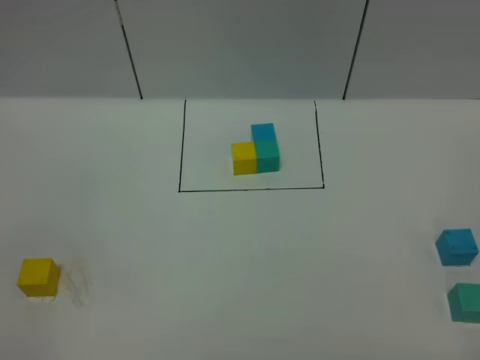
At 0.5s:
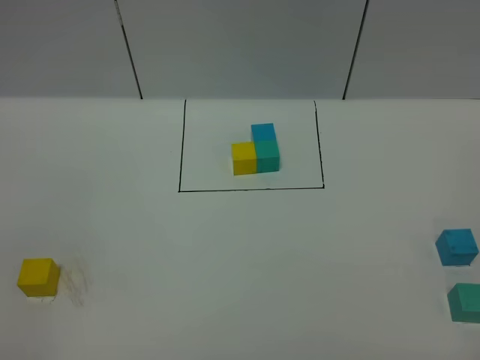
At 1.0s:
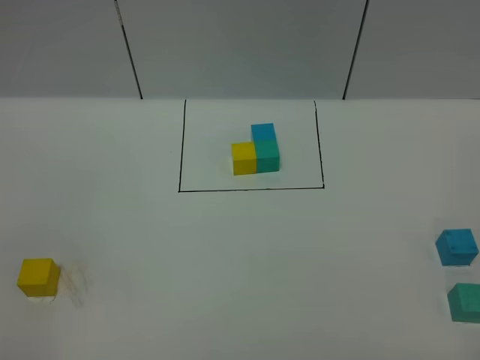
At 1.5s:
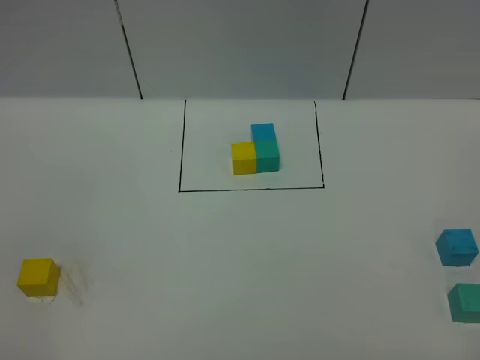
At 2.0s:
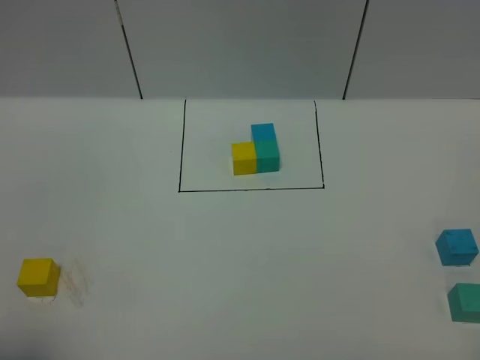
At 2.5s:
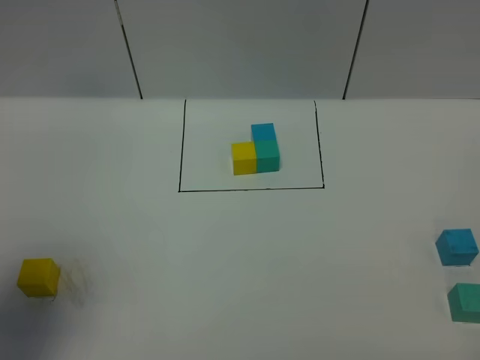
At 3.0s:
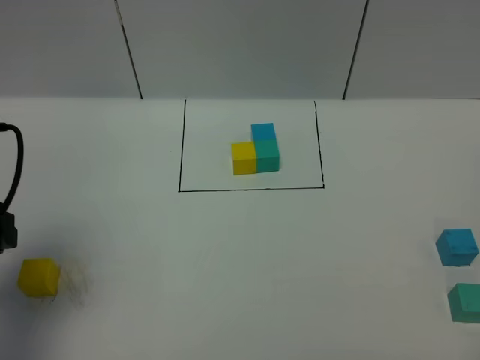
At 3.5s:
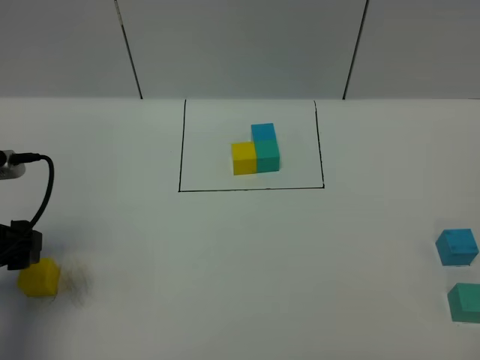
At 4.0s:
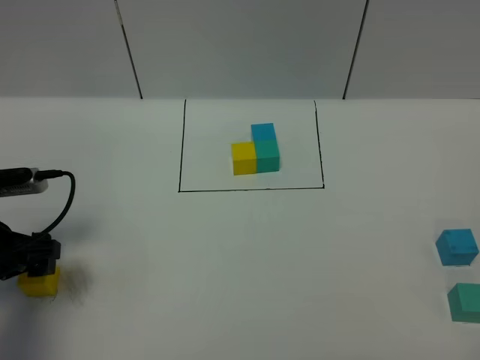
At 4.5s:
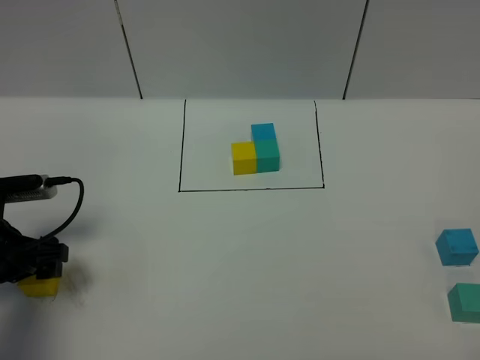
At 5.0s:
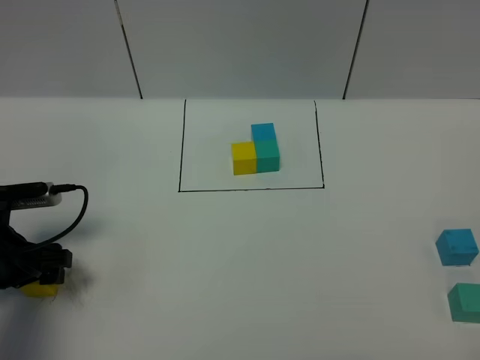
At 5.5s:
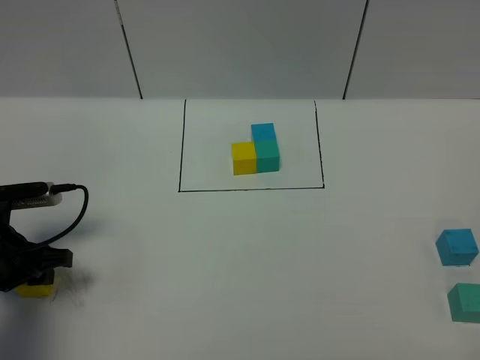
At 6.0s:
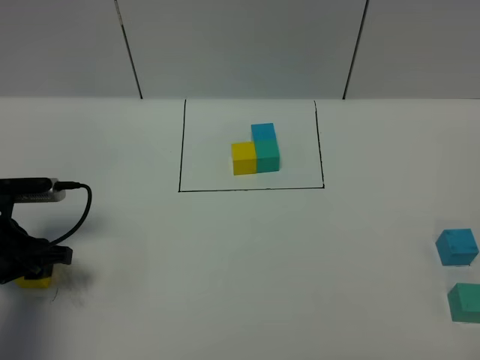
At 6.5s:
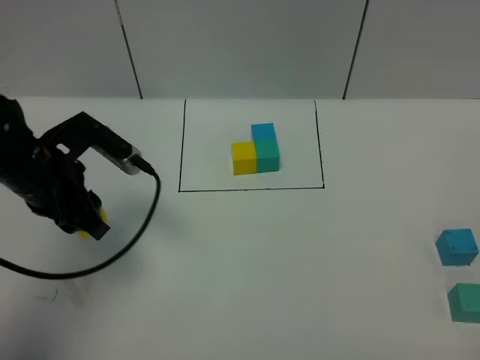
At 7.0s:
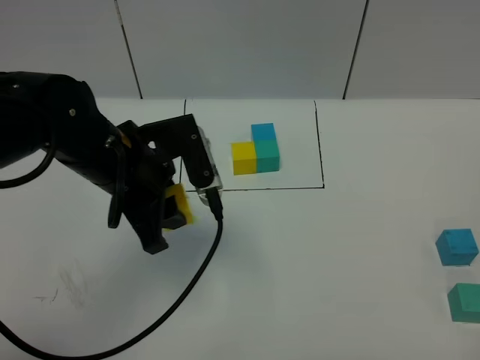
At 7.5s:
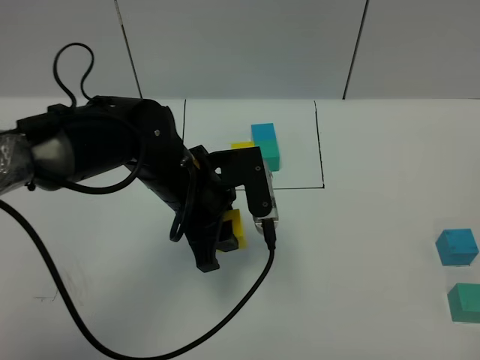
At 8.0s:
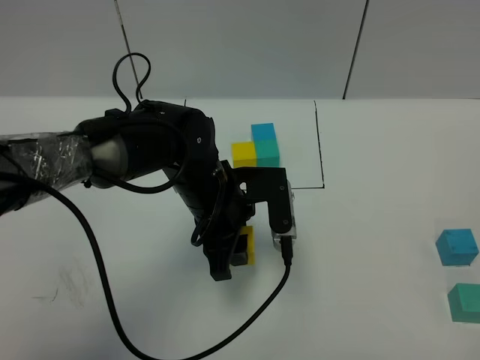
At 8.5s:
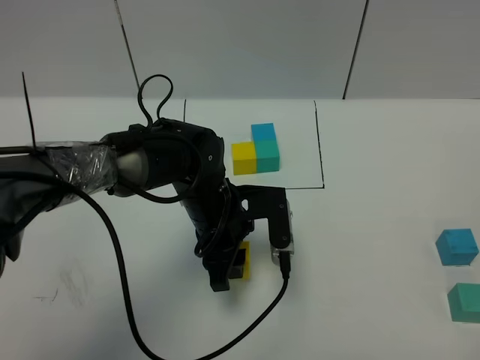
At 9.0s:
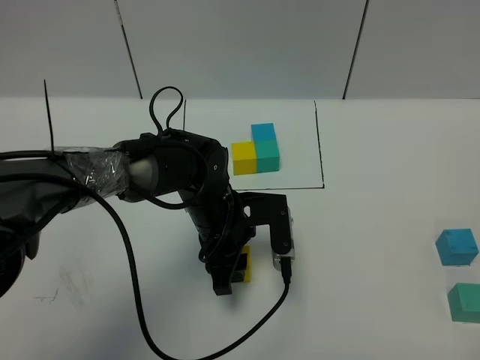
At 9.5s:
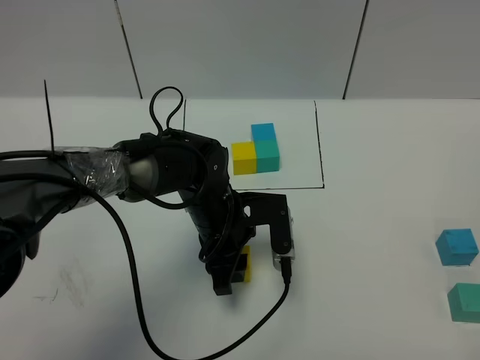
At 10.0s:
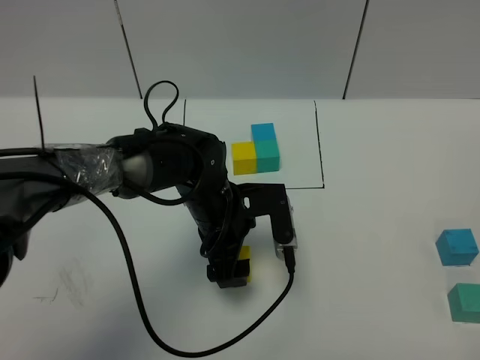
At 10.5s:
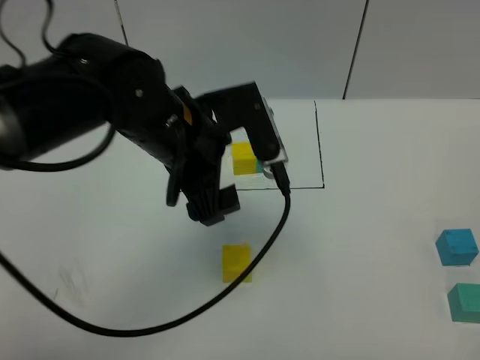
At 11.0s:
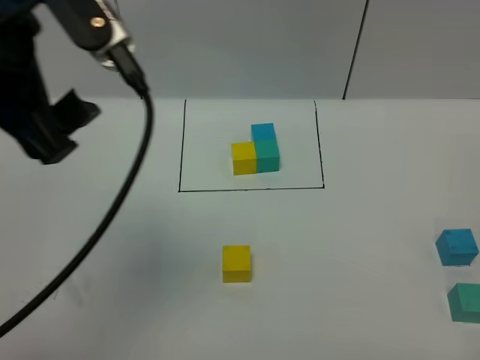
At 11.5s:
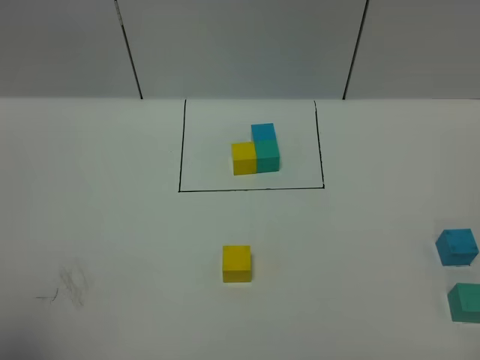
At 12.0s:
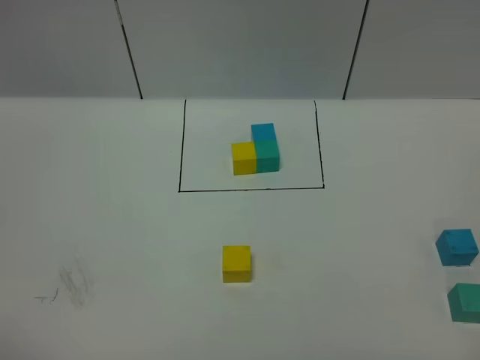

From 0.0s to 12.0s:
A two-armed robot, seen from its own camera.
Task of the whole recording: According to the building block template in front, assemble the scattered blocks together.
Step, from 2.5s to 10.0s: Put the yellow cube in the center of the table.
From 2.0s to 4.0s: The left gripper heads forward and downward, covering approximately 25 cm.
From 4.0s to 6.0s: The left gripper closes.
From 6.0s to 8.0s: The left gripper travels to the right by roughly 25 cm.
From 8.0s to 10.0s: The left gripper opens.
From 10.0s to 12.0s: The left gripper moves backward, upward and to the left, about 60 cm.

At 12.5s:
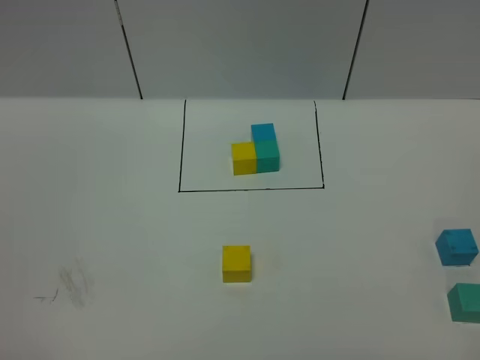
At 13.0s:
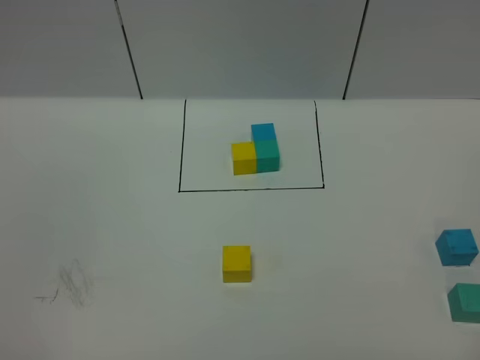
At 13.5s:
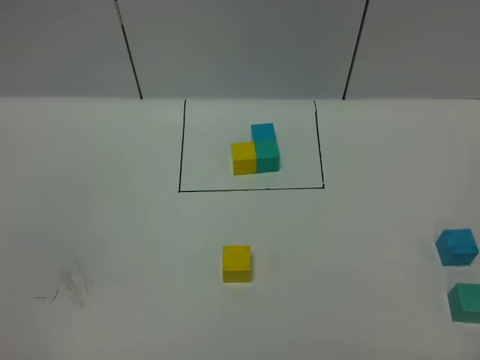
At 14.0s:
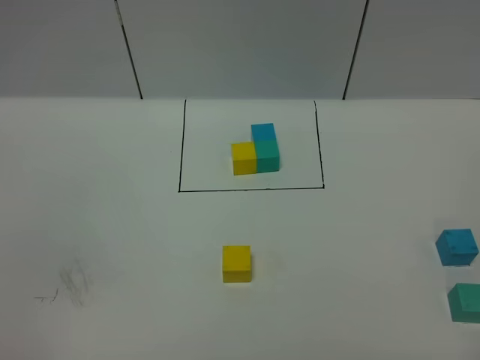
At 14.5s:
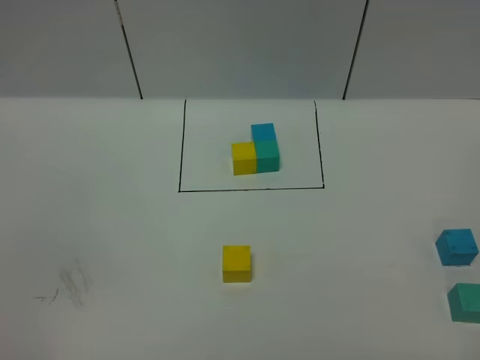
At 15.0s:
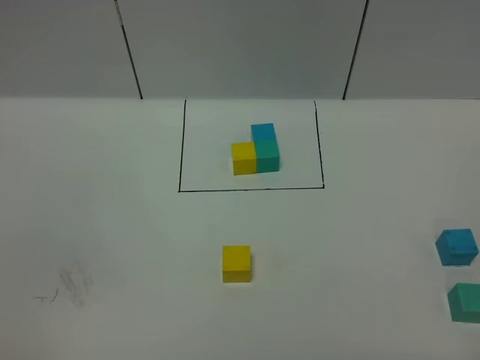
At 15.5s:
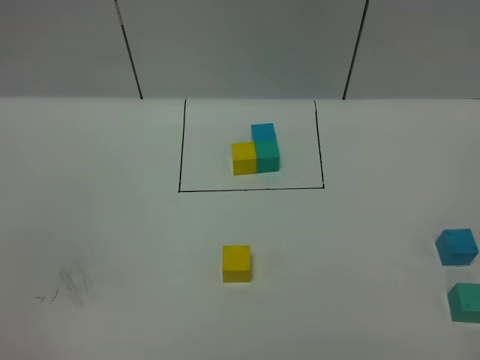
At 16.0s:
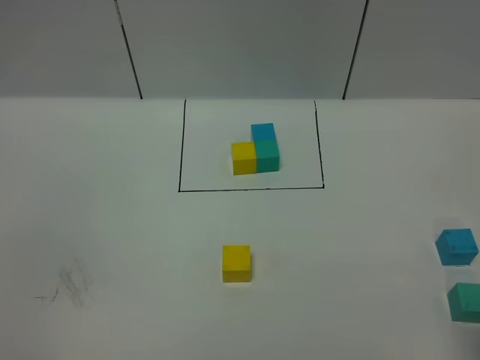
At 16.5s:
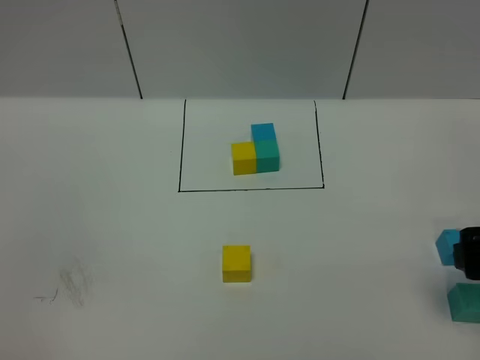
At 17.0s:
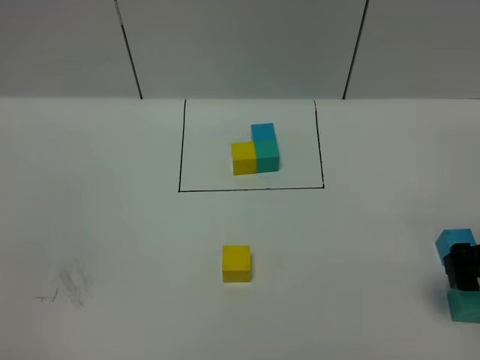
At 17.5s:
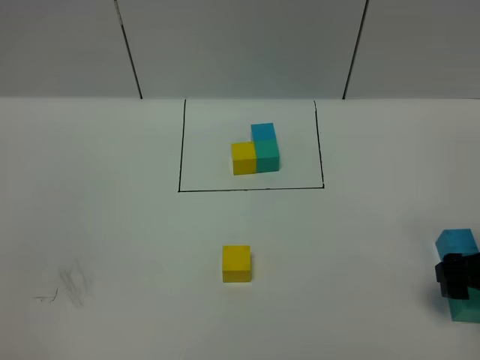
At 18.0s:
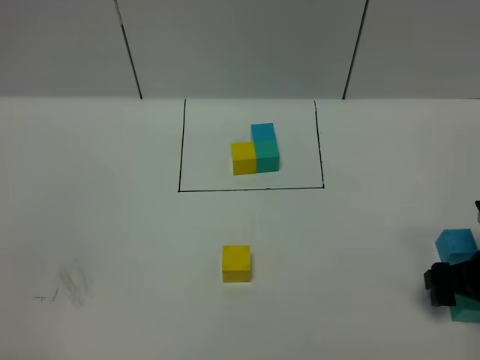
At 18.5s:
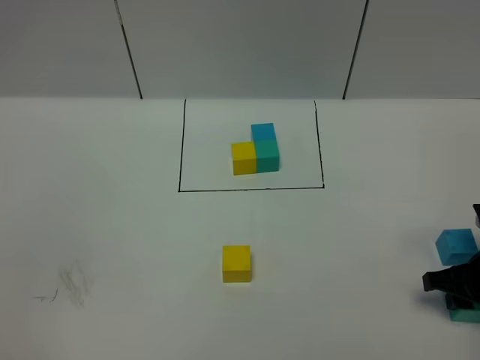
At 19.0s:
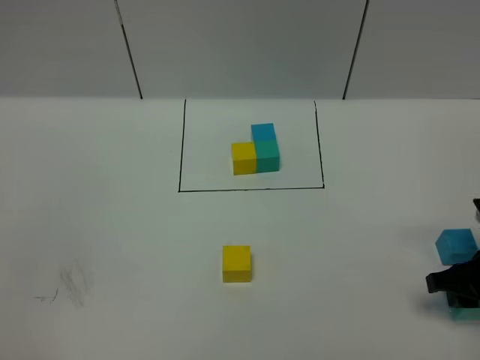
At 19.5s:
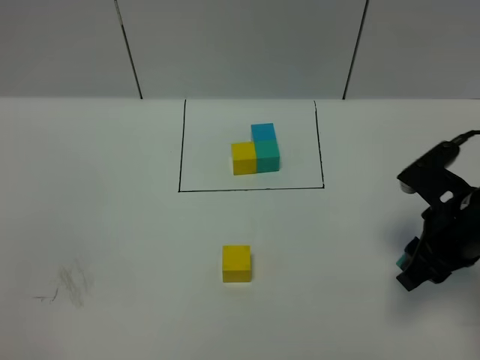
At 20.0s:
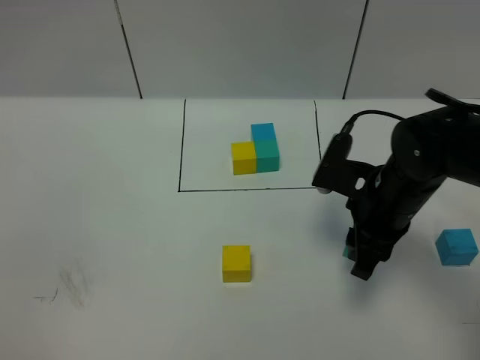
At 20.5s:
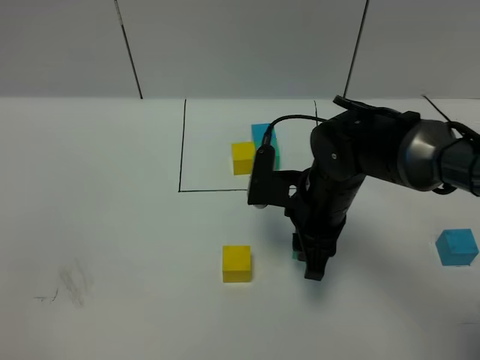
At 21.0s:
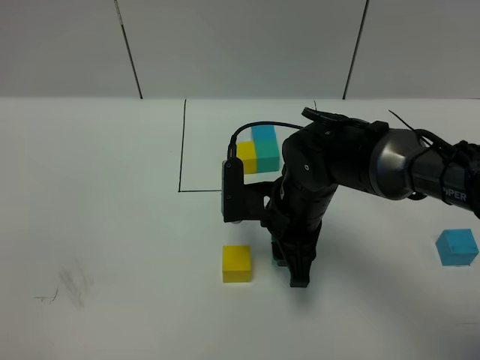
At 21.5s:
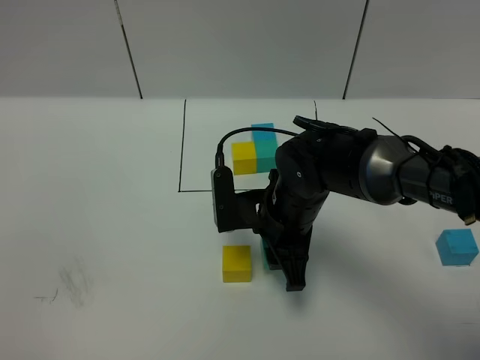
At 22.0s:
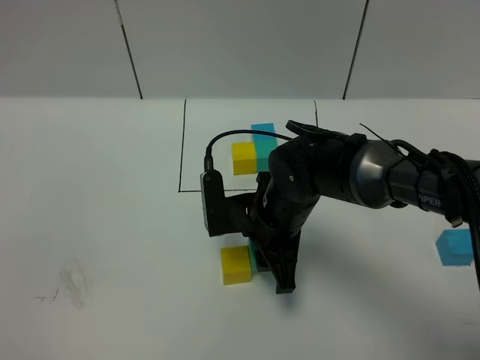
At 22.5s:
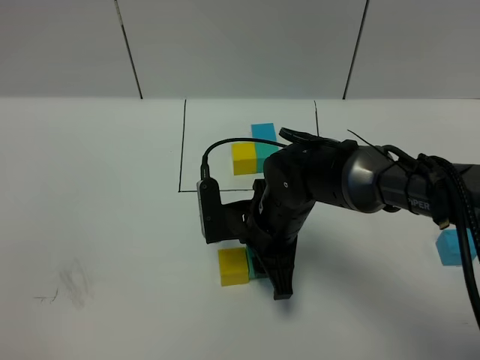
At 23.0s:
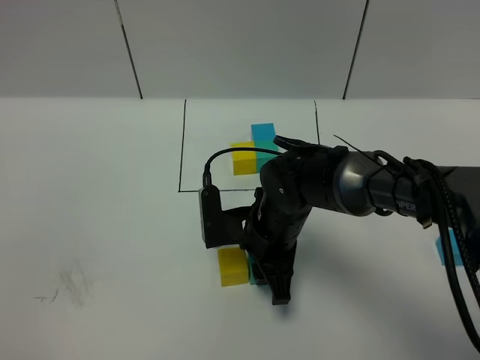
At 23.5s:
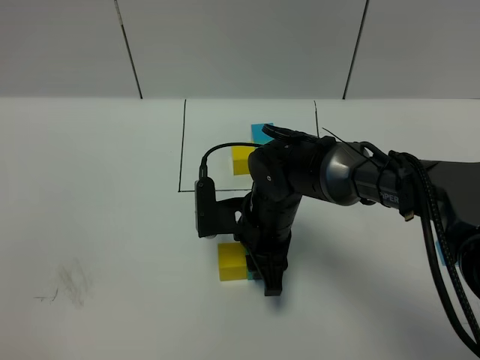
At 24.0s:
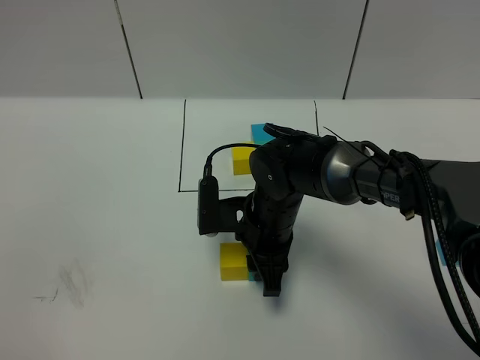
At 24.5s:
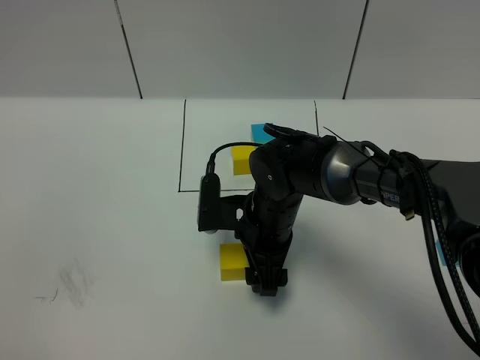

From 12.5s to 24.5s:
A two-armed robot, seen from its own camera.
Task of the whole recording: According to the building block template in front, assemble the scattered blocks together.
From 14.5s to 16.5s: The right gripper goes approximately 20 cm forward, and opens.
From 16.5s to 18.5s: The right gripper shifts approximately 10 cm downward, and closes its fingers.
From 18.5s to 20.5s: The right gripper moves to the left, approximately 20 cm.
From 20.5s to 22.5s: The right gripper ends up about 5 cm from where it was.
From 22.5s to 24.5s: The right gripper opens its fingers.

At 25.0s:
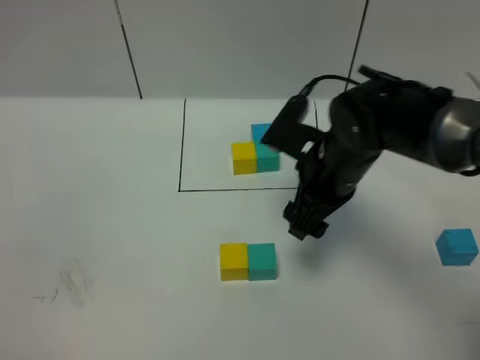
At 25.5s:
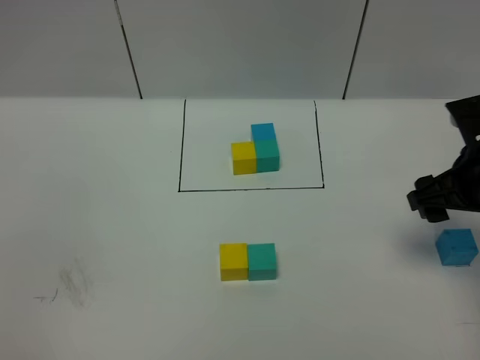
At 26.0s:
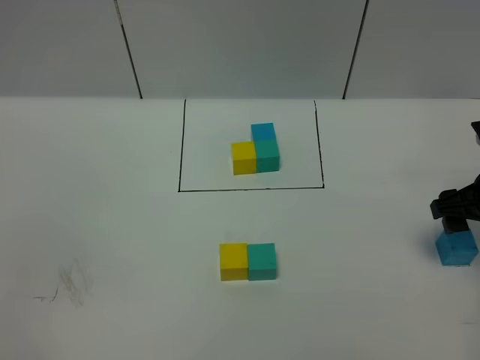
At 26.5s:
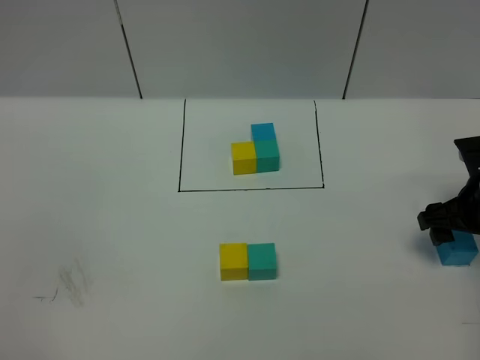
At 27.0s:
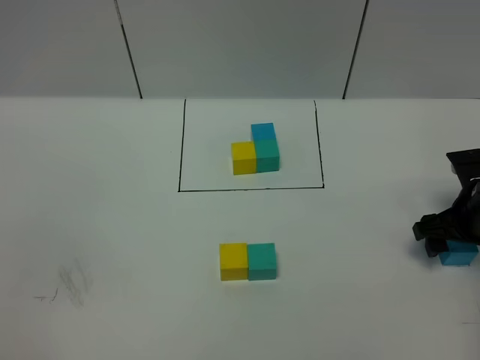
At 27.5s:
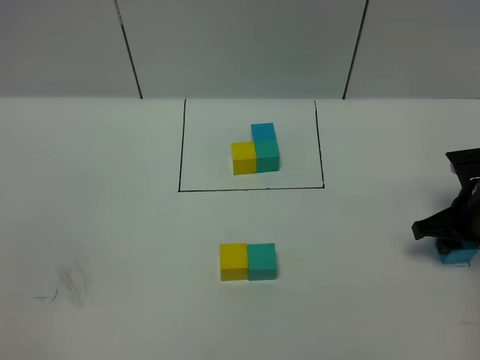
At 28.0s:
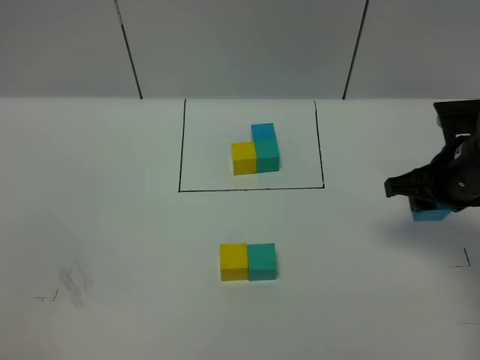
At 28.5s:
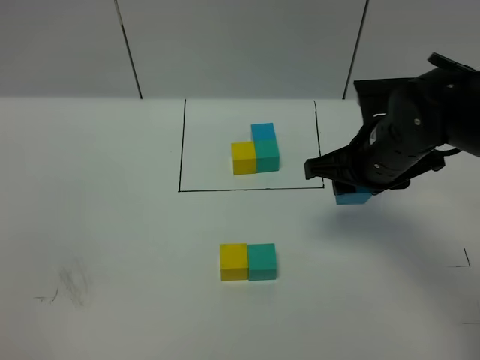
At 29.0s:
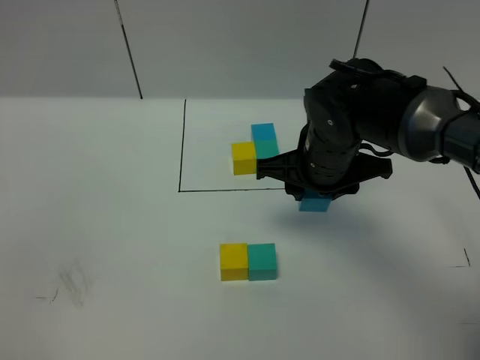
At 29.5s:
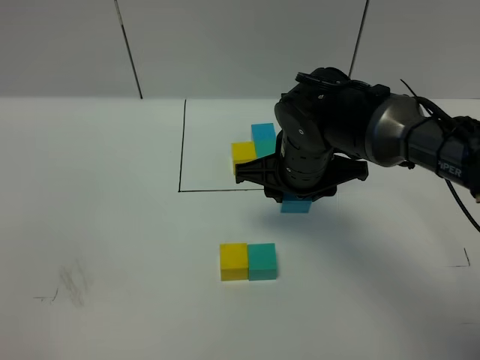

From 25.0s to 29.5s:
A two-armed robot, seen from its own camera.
Task of the whole recording: According to the building block template in front, assemble the scattered blocks together.
From 25.0s to 27.0s: The right gripper is displaced to the right and downward by about 20 cm.
From 27.0s to 29.5s: The right gripper heads to the left, covering about 25 cm, and closes its fingers.
